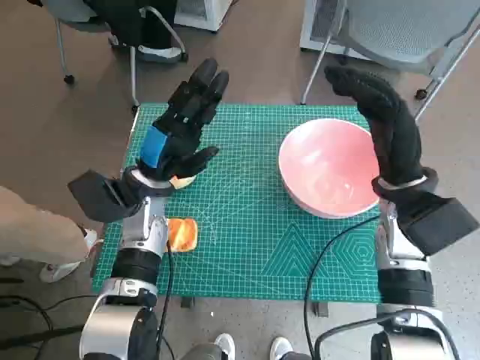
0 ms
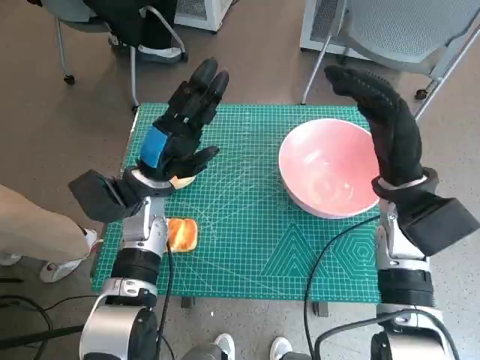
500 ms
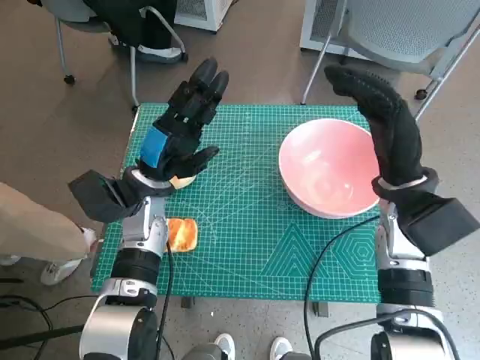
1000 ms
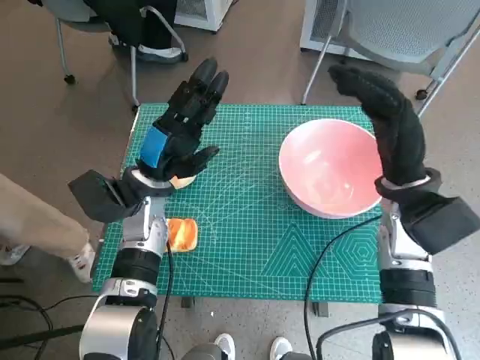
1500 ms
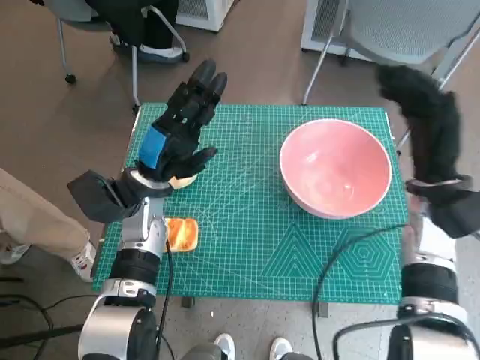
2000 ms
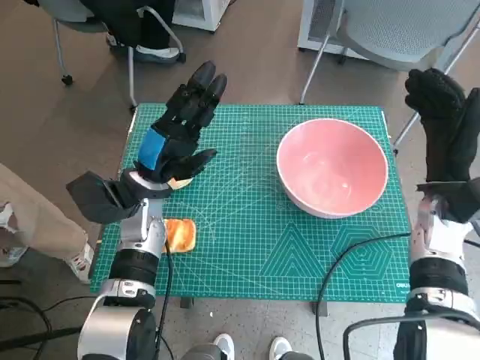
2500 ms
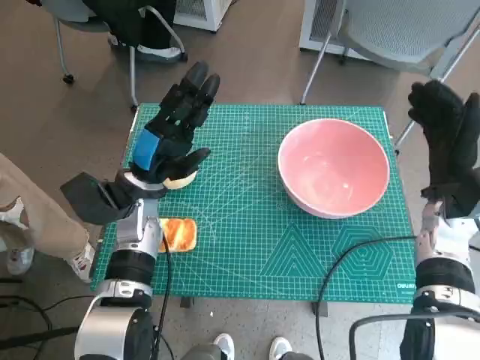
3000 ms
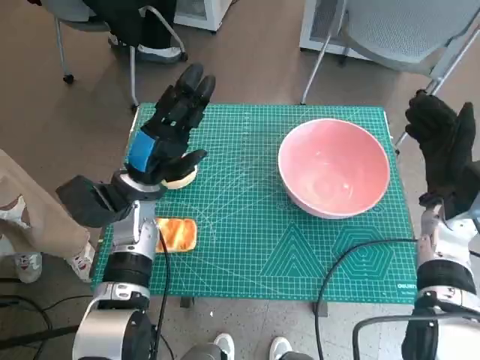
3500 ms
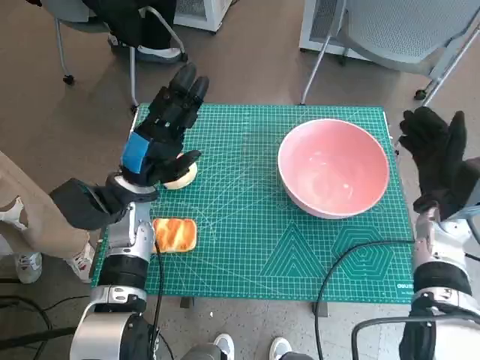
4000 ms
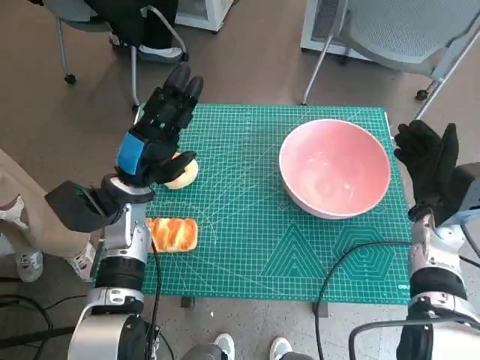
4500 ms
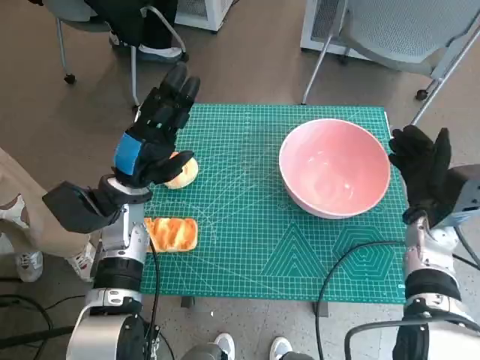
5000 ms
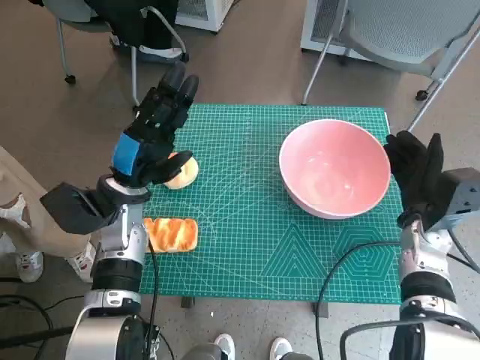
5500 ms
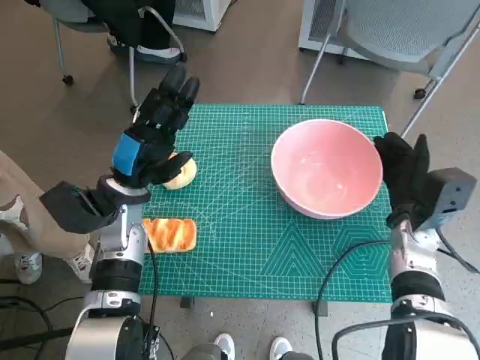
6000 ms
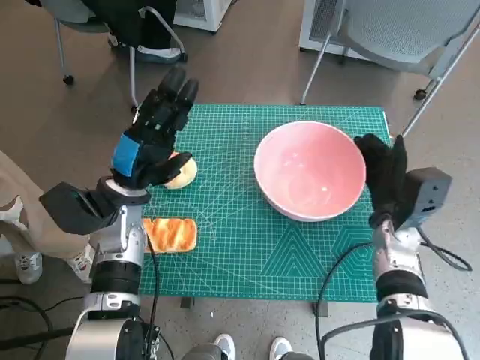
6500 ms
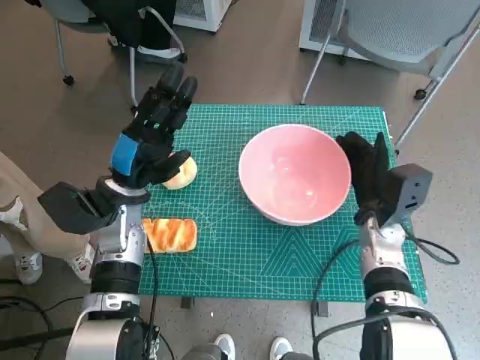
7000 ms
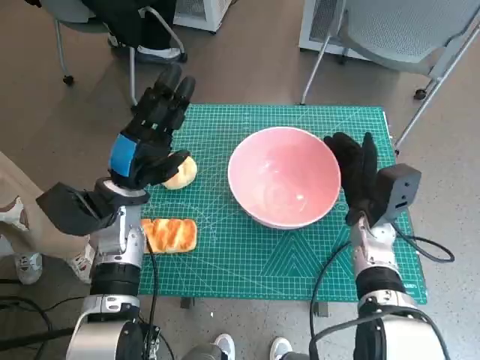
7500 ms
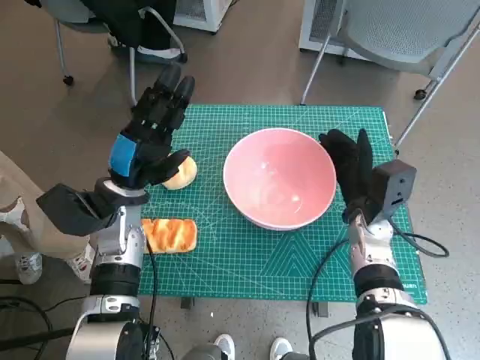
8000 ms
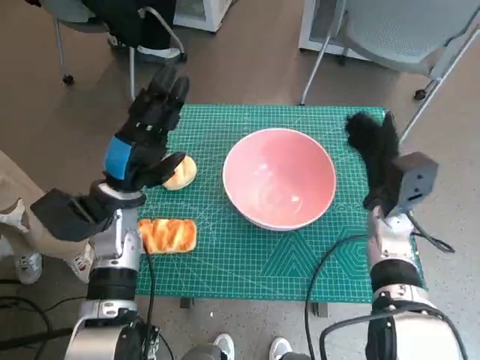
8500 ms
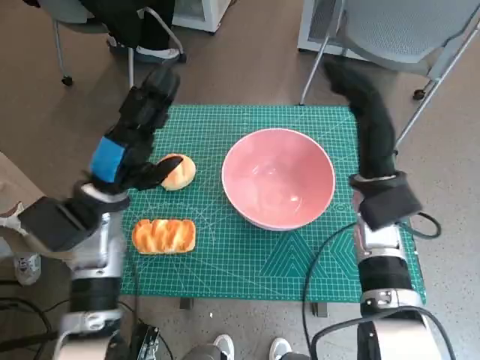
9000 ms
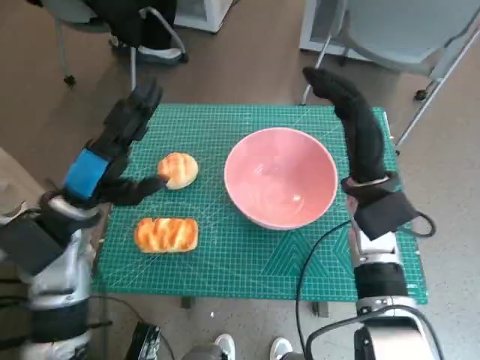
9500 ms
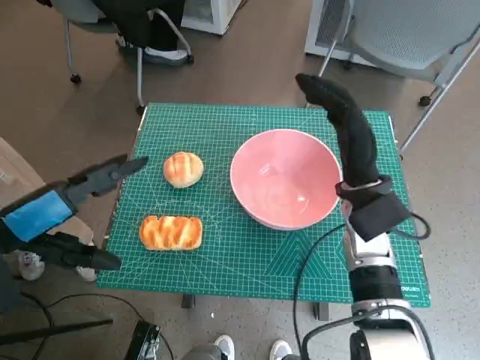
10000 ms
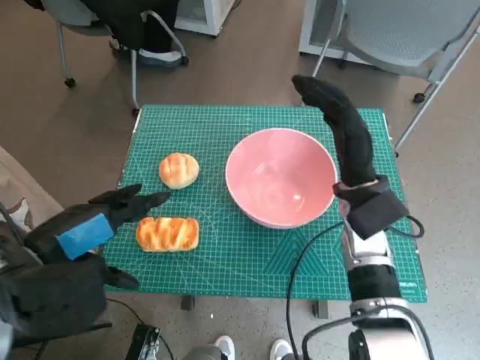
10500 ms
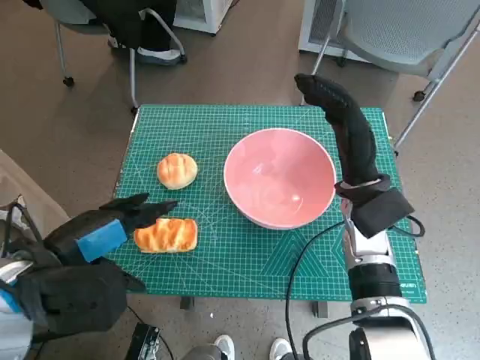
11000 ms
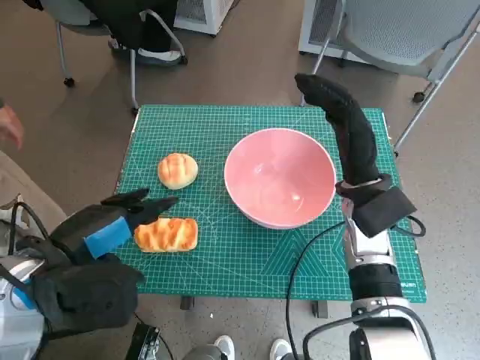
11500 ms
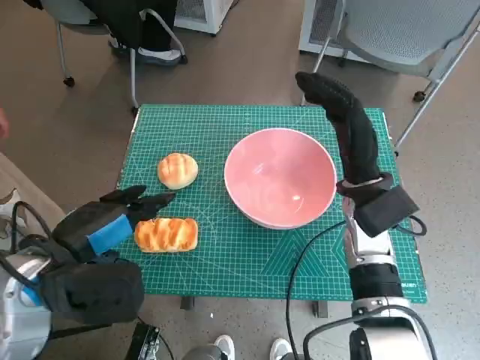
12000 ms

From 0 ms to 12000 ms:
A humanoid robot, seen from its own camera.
Step, from 0 ms to 8000 ms: Move the pink bowl to the center of table with right hand.

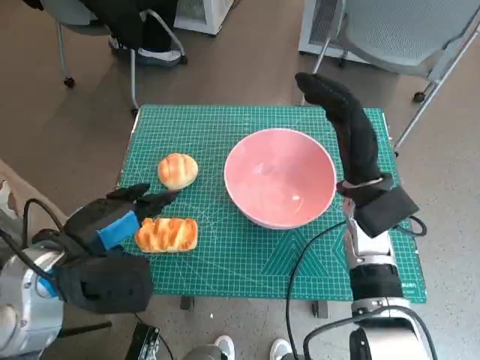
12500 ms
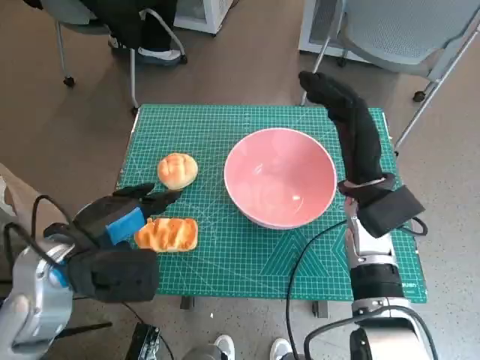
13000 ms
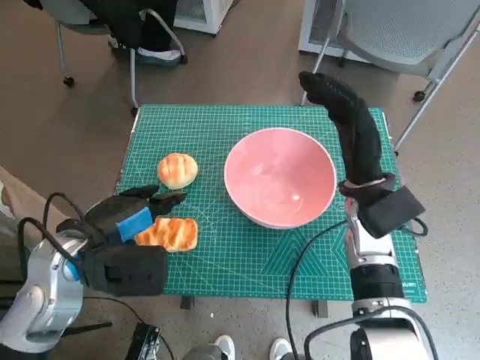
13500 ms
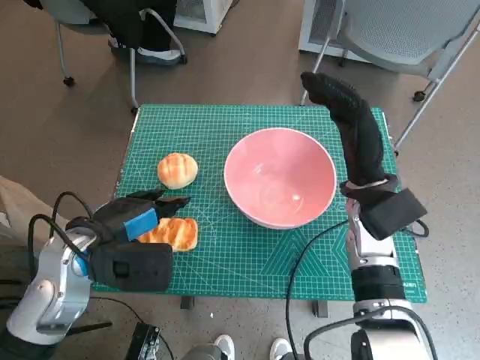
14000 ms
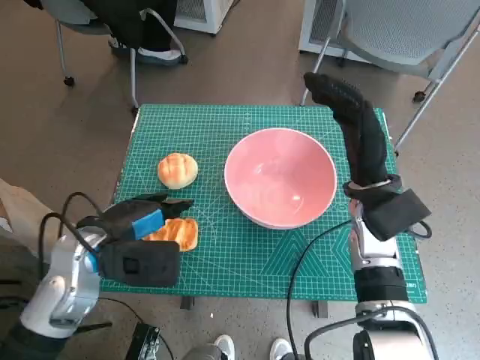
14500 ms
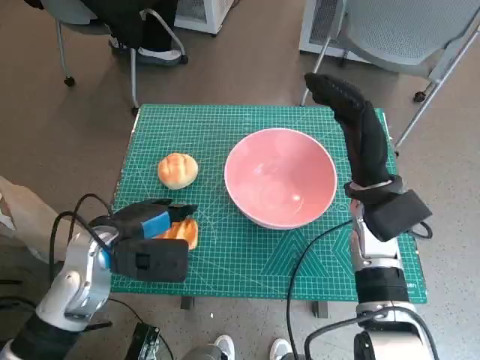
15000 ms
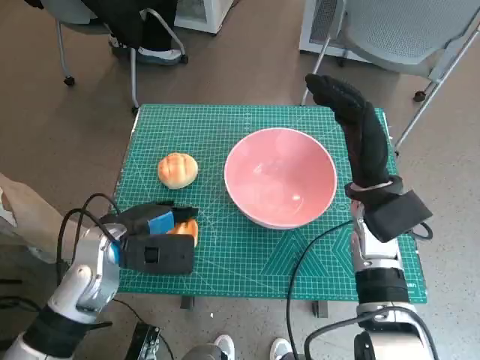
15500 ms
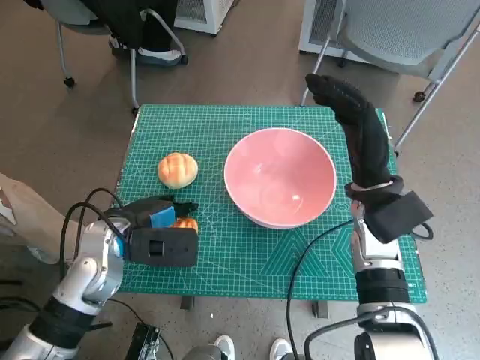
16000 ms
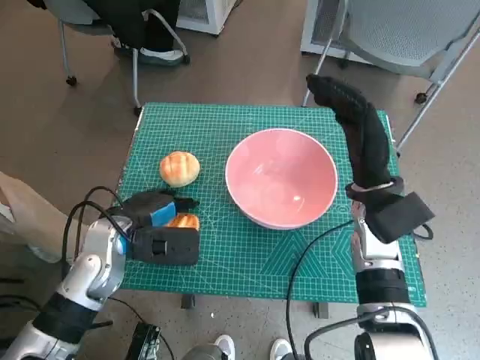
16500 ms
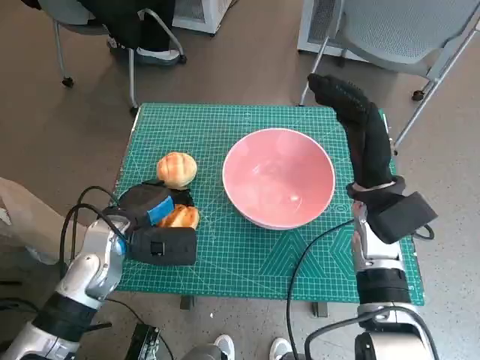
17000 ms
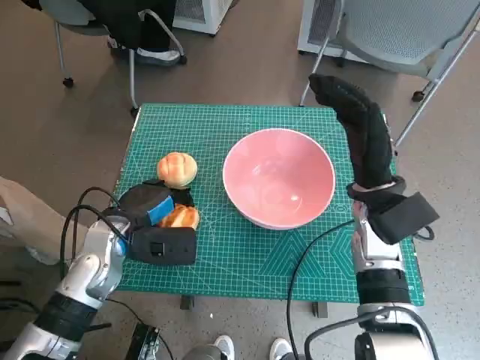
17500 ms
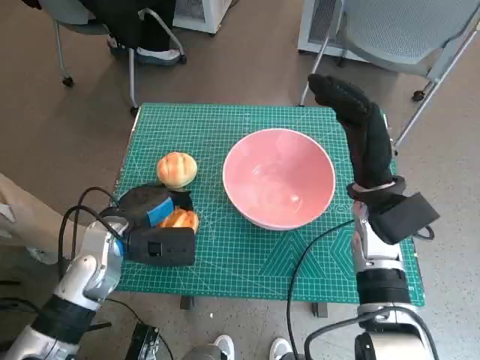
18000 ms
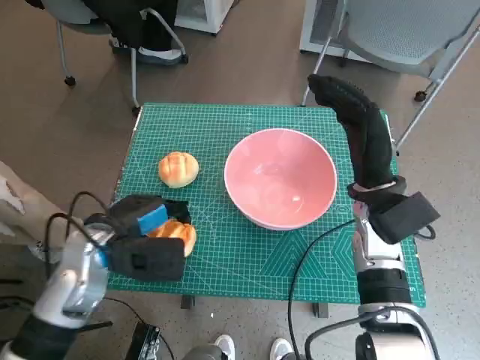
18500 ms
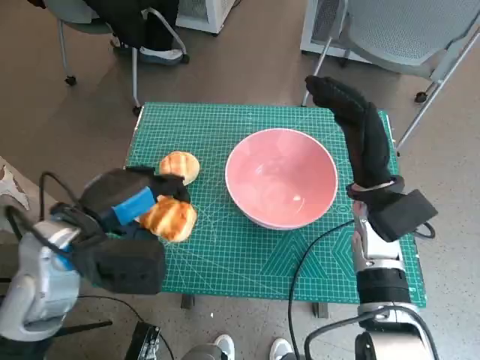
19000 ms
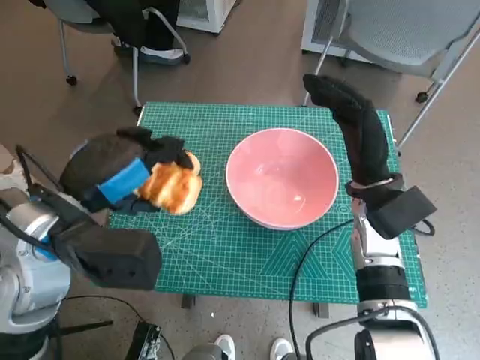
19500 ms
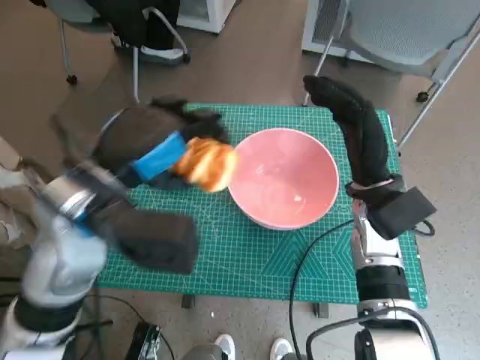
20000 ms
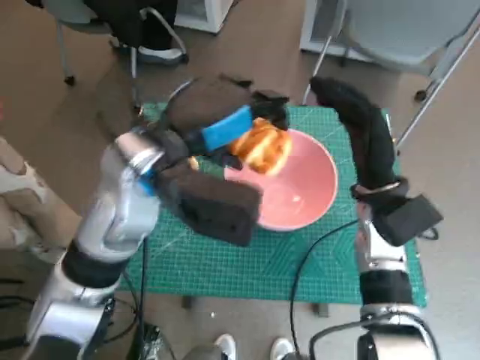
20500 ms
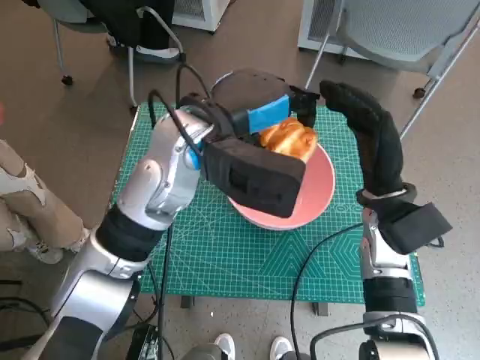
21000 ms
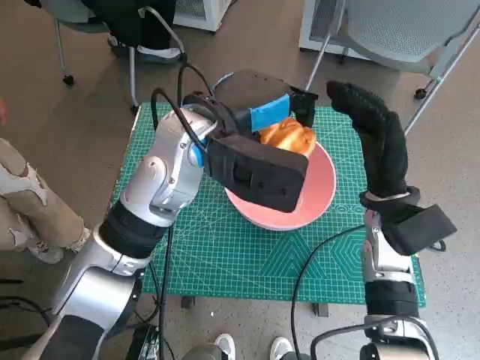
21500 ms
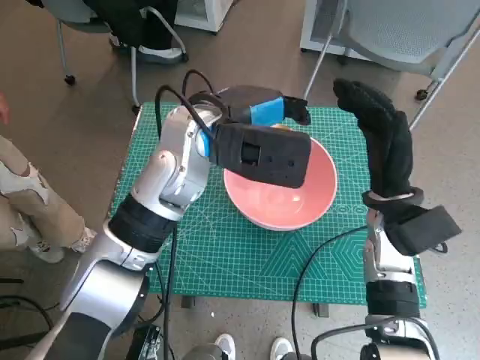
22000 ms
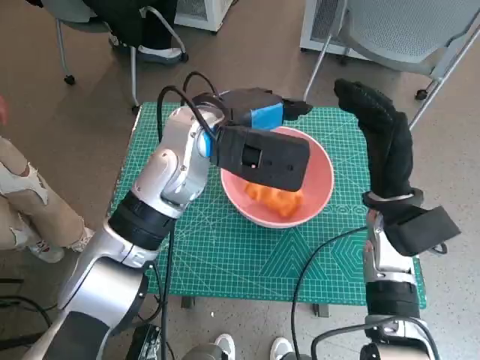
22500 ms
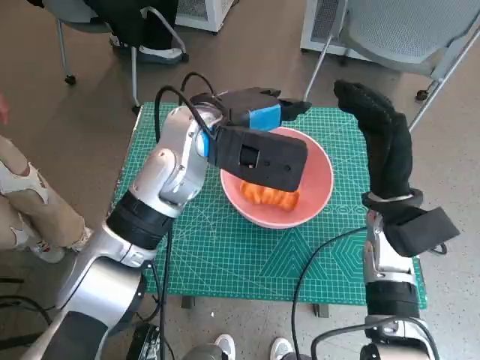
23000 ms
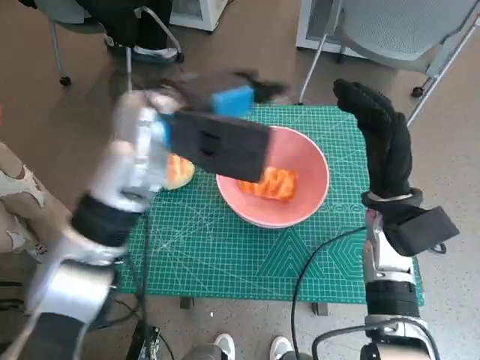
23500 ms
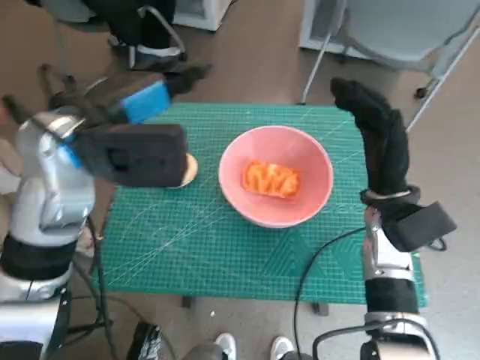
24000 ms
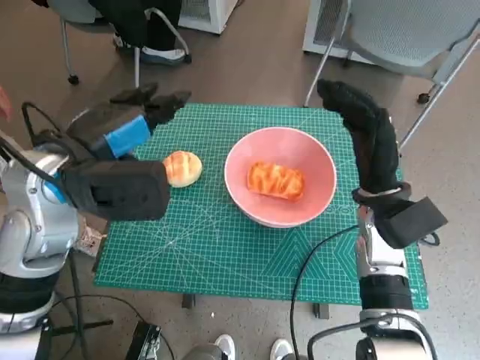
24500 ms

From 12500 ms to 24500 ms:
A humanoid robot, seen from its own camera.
Step, from 12500 ms to 17000 ms: Grasp the long bread with left hand.
Step, from 17500 ms to 22500 ms: Place the long bread in pink bowl with left hand.
